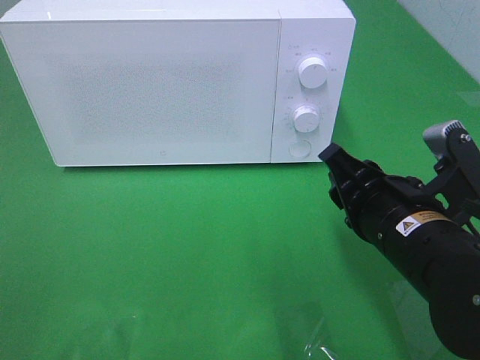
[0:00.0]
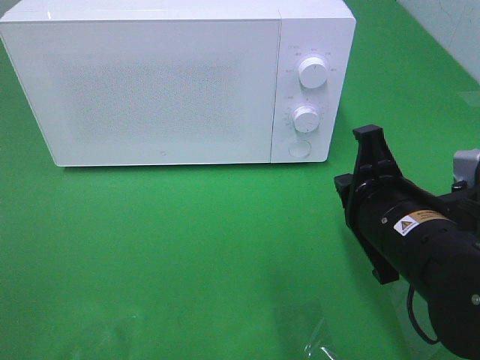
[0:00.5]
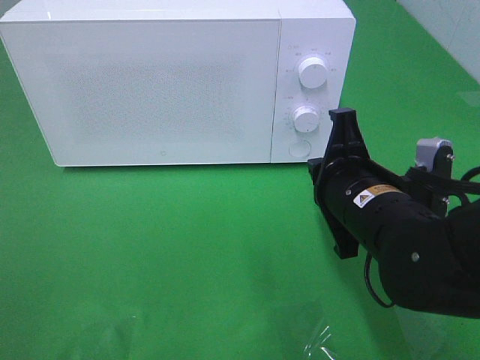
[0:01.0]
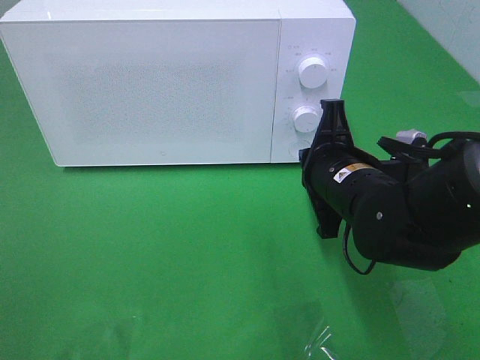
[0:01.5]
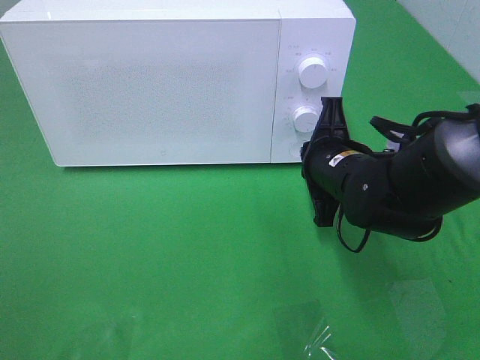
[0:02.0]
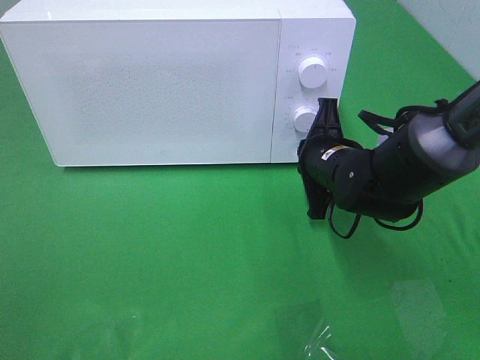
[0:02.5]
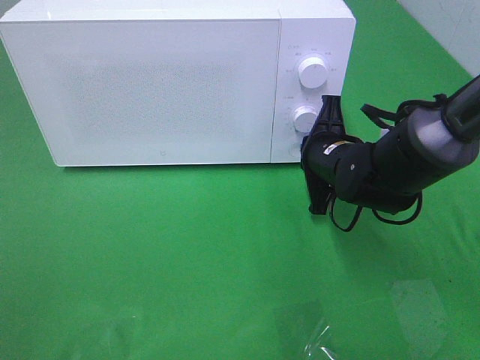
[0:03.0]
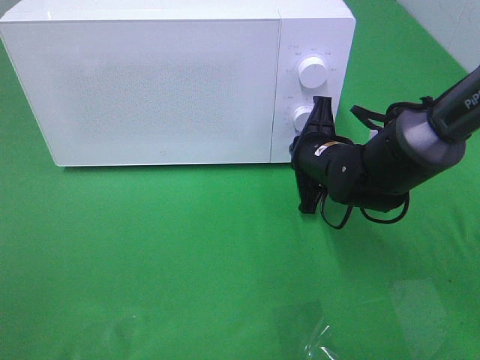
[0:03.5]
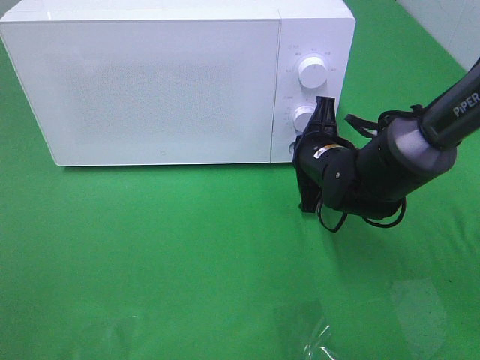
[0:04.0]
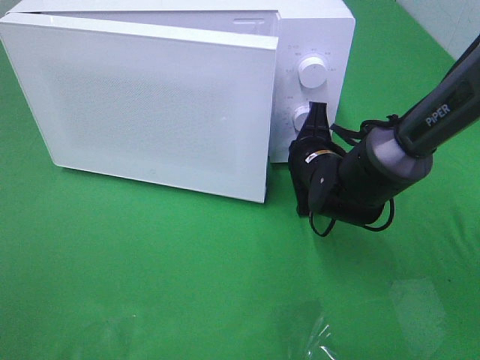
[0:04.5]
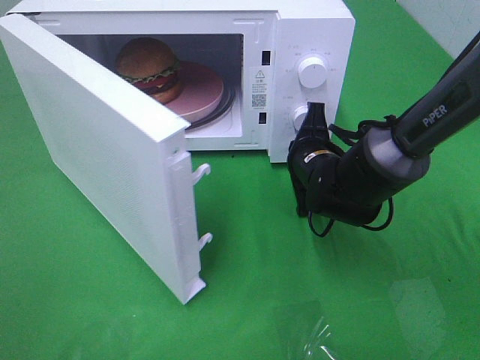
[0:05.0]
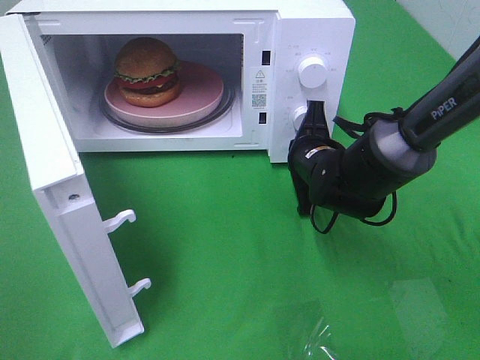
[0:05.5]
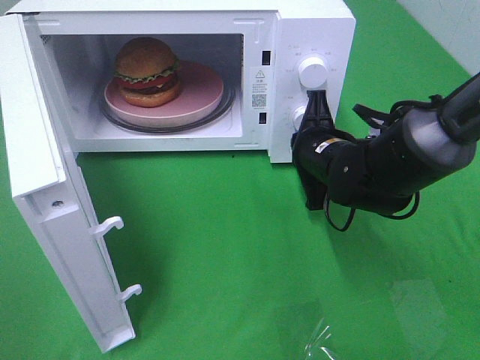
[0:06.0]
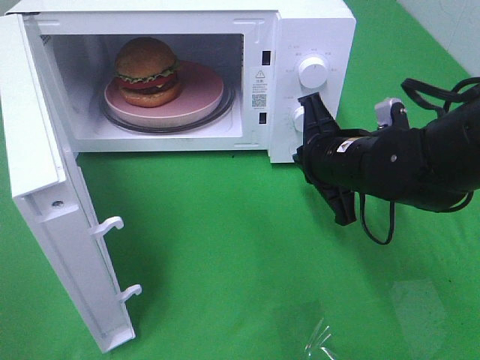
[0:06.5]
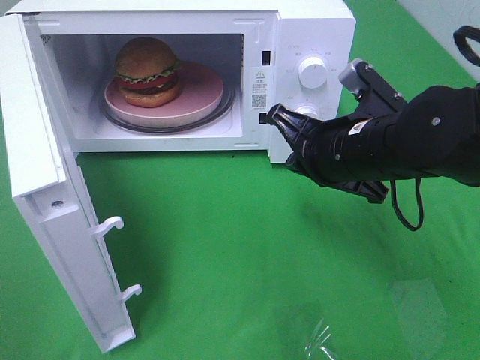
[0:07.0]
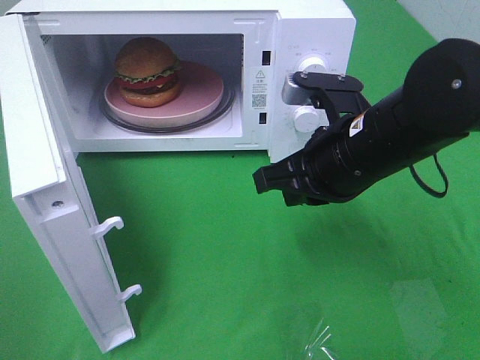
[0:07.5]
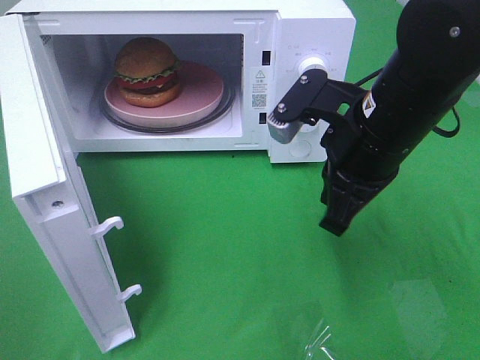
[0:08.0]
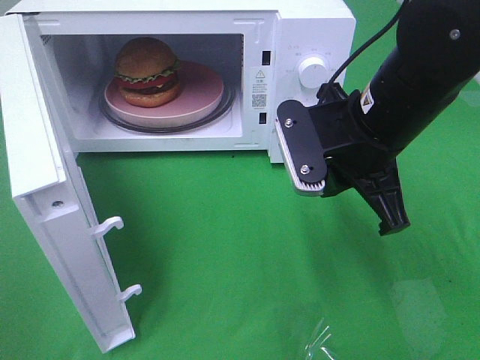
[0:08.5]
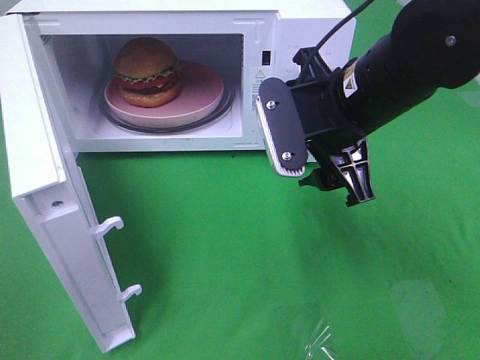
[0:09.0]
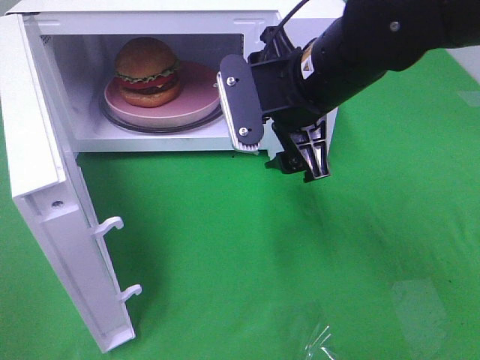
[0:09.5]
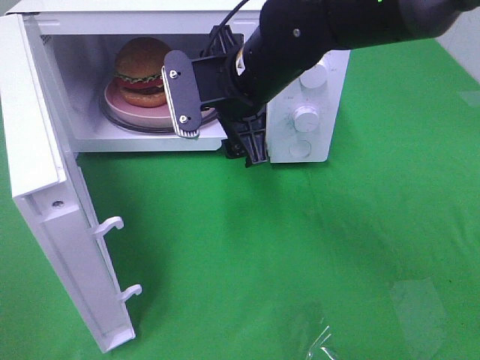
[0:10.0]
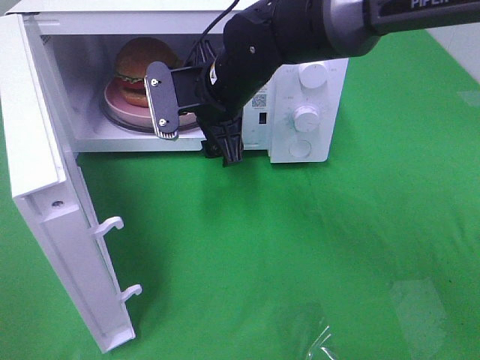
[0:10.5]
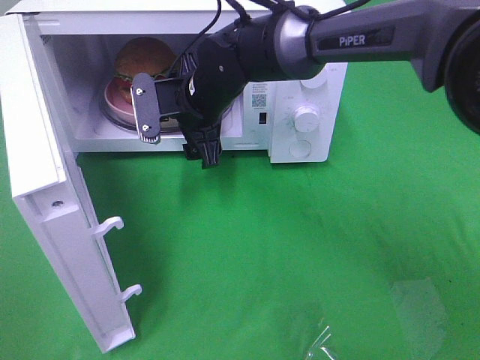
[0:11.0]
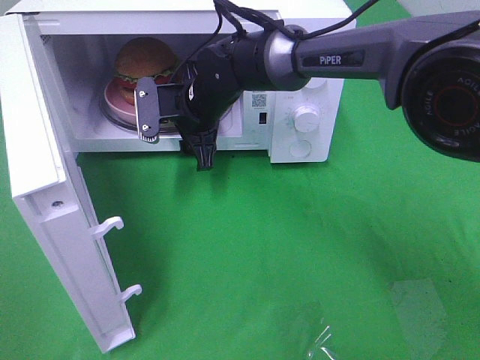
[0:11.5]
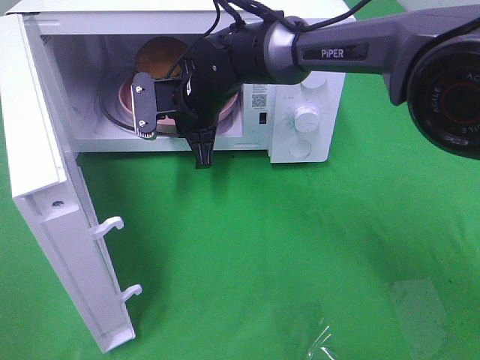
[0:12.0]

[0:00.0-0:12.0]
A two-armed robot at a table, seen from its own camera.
Task of the whole recording: Heat the burger.
Step, 0:00.0 to 0:06.5: Right hand: press the switch.
0:00.0 to 0:02.0: The right gripper is displaced forward by approximately 10 cm, and closes.
0:02.0 to 0:04.0: The right gripper changes place by about 5 cm.
0:06.0 to 0:08.0: The right gripper travels upward and backward by some 15 cm.
0:08.0 to 0:10.0: The right gripper shifts about 15 cm to the left and forward, and opens up.
0:10.0 to 0:12.0: The right gripper is displaced forward, downward and to the left by about 10 cm, and closes.

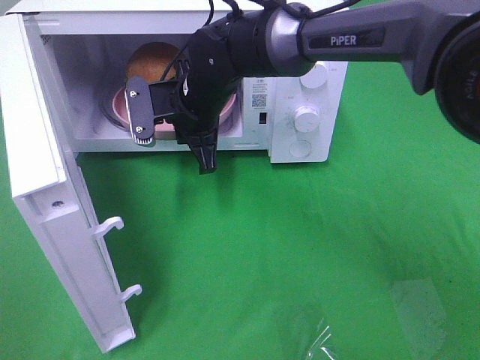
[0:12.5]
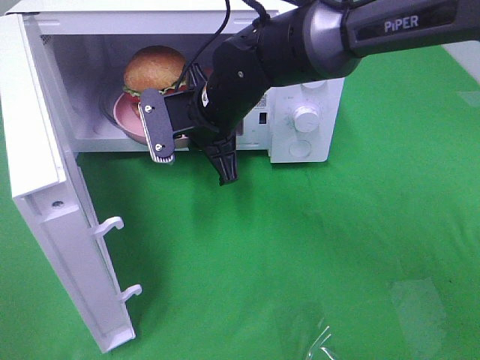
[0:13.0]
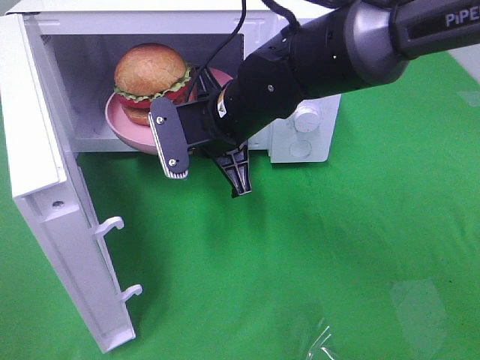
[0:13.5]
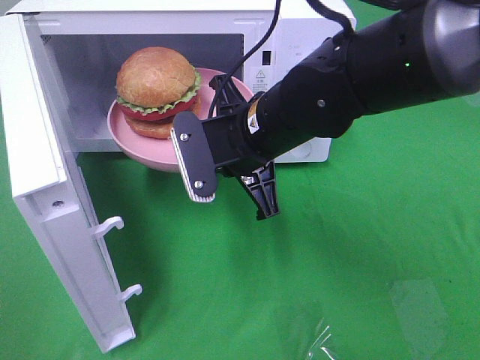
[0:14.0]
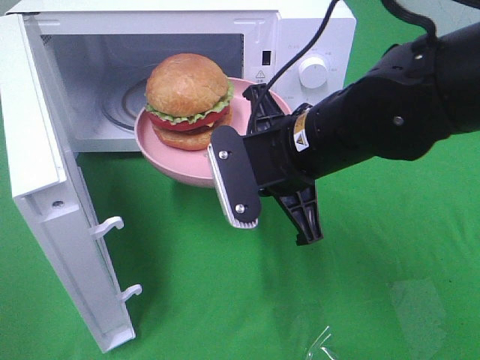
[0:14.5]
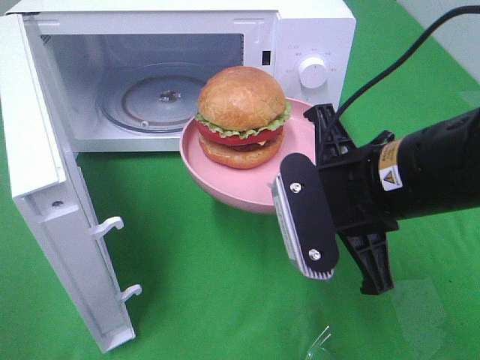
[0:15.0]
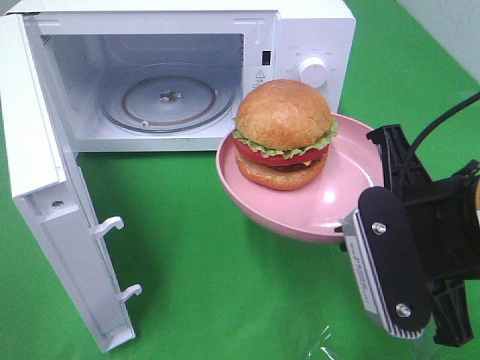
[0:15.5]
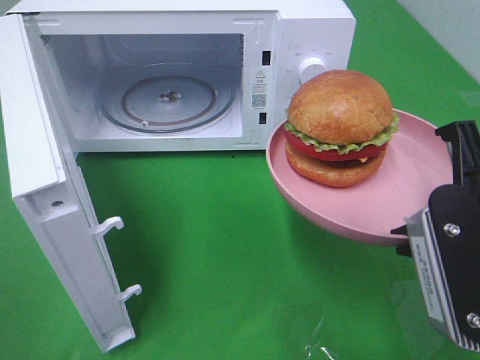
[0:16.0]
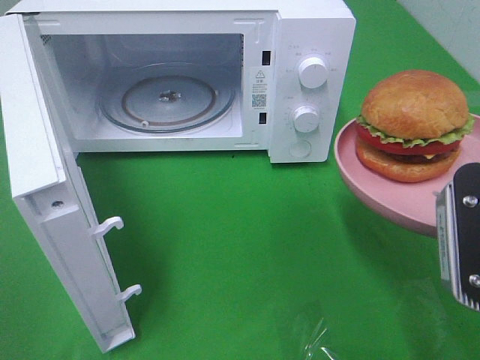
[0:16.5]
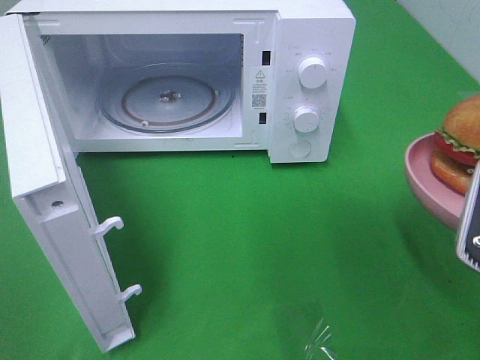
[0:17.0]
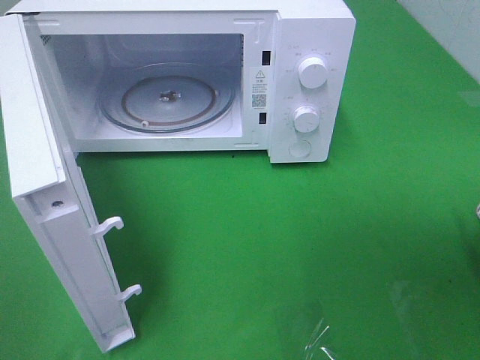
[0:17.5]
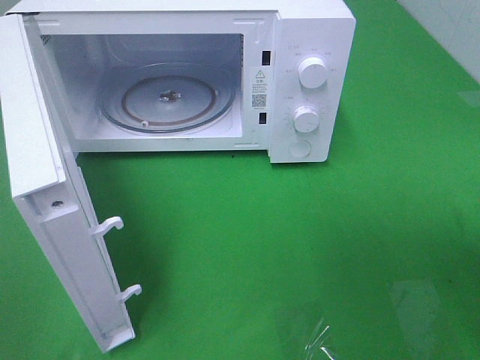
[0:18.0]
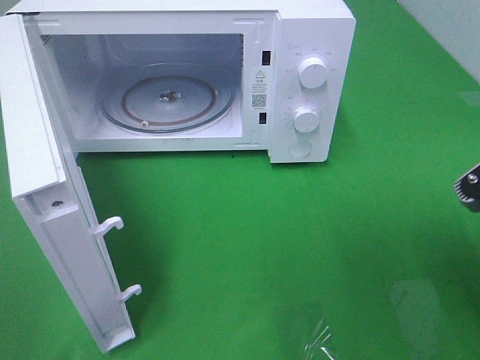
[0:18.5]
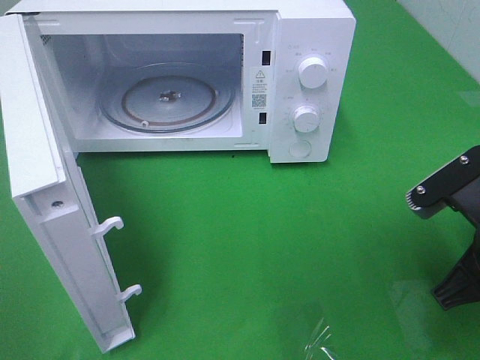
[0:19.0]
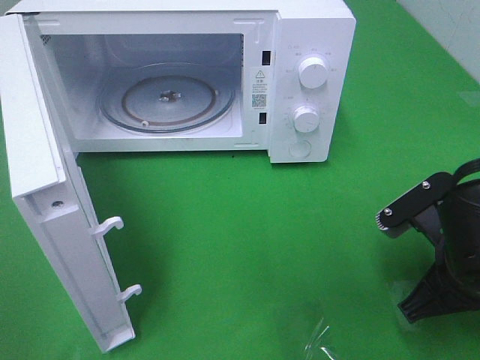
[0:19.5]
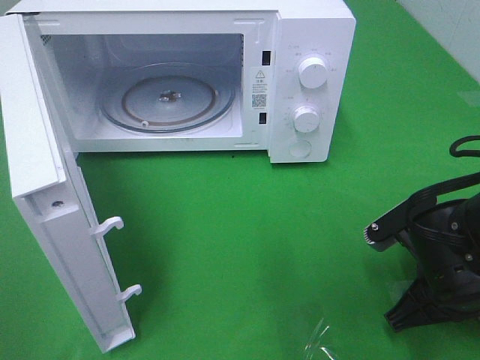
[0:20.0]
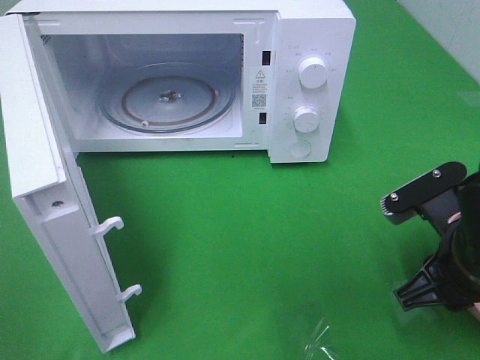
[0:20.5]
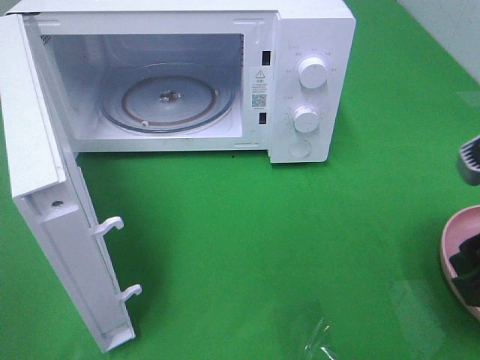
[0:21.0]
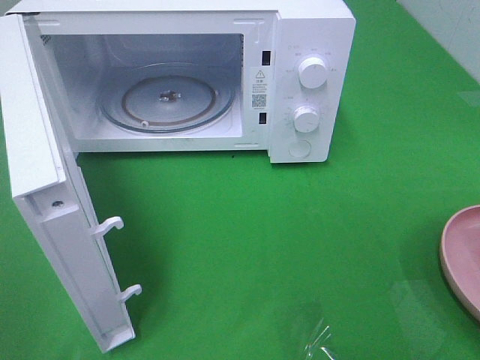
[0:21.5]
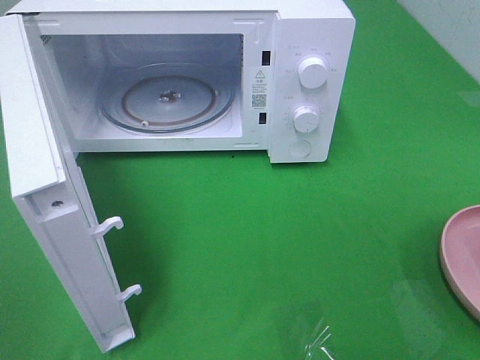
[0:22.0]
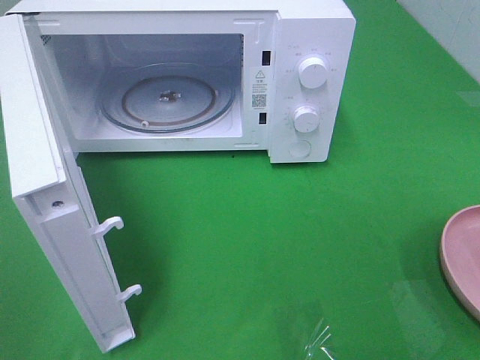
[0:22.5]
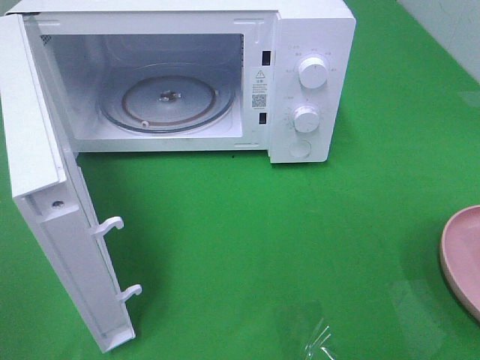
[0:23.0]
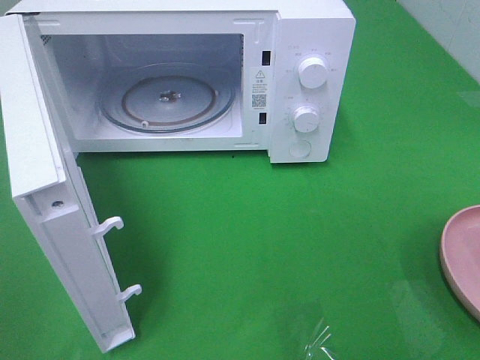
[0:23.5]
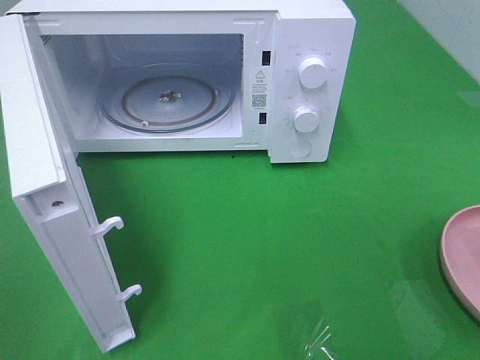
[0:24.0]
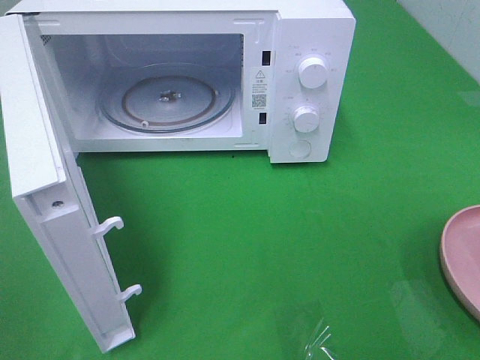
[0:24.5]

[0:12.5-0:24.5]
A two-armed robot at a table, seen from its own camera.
Task of the whole recording: Heat the burger.
Step, 0:13.5 to 0:21.0: Right hand: place the plate on the table.
0:12.5 to 0:14.5: The right gripper is displaced backward and to the right by roughly 20 cm.
0:14.5 to 0:16.5: The right gripper travels to the right and backward by some 20 cm.
0:18.5 to 0:20.5: The right gripper goes about 5 cm downward, and opens.
0:20.5 to 0:22.5: The right gripper goes some 25 cm backward, upward and to the right, and opens up.

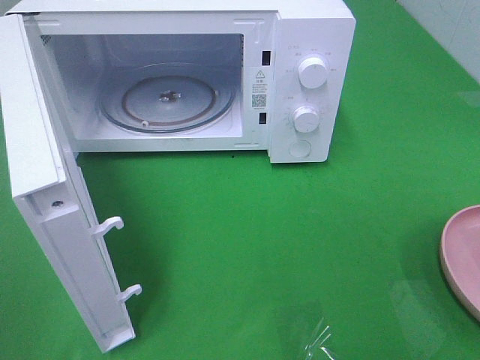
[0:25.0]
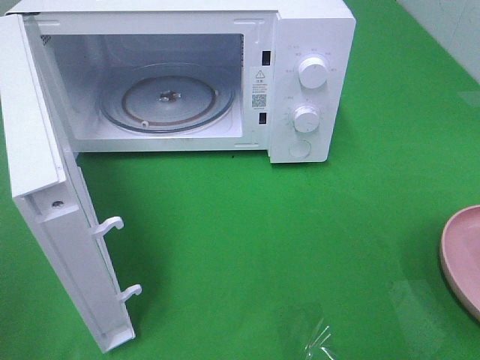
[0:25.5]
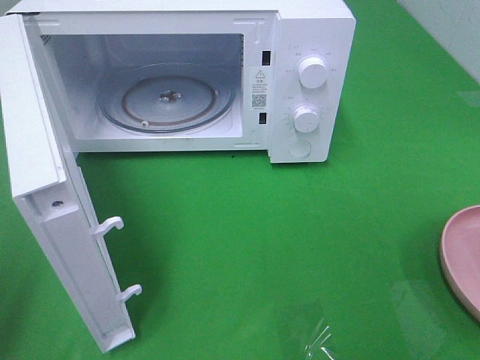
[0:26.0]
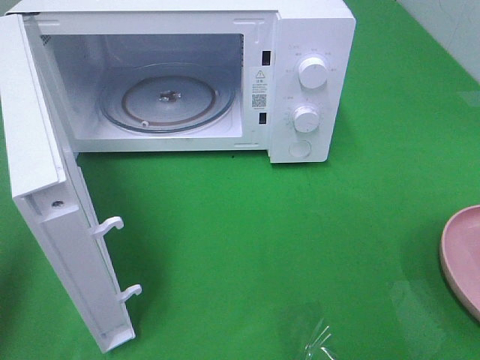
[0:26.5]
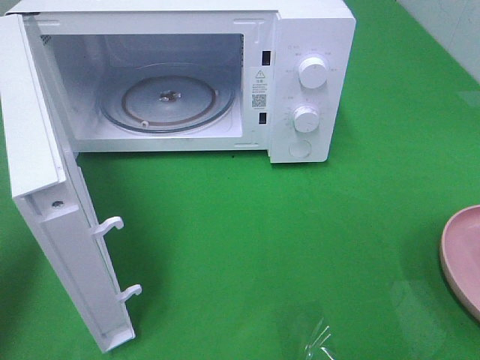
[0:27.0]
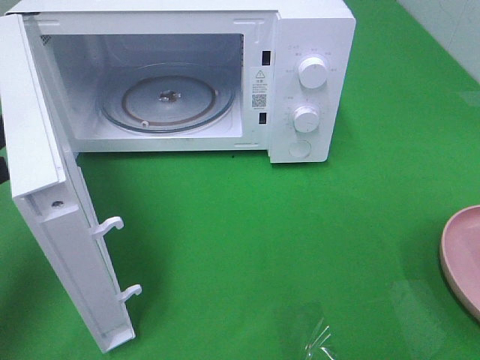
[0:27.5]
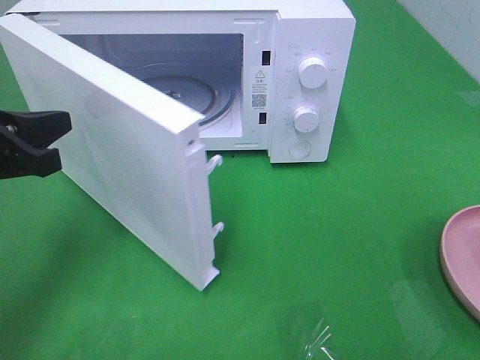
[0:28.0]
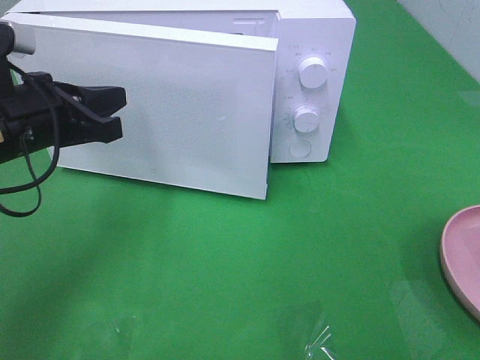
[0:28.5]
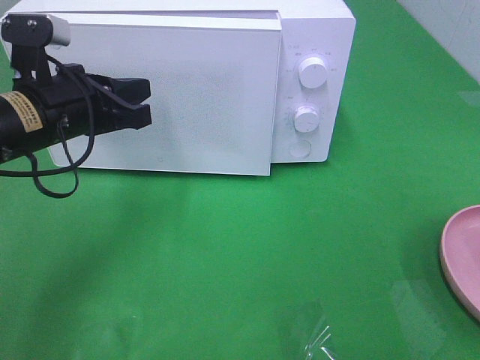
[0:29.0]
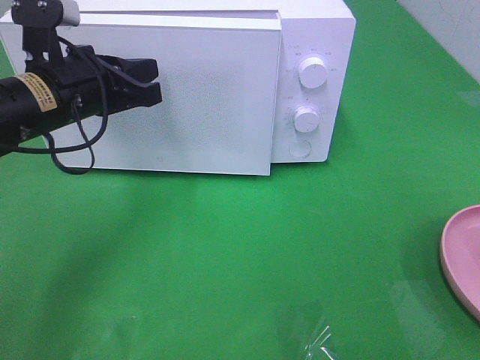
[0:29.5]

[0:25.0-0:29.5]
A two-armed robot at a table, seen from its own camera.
Task of the whole recording: Heat the burger.
0:25.0 to 0:27.0: The left gripper goes approximately 20 cm forward, and closes.
0:27.0 to 0:29.5: The left gripper shifts approximately 20 cm to the right and forward.
